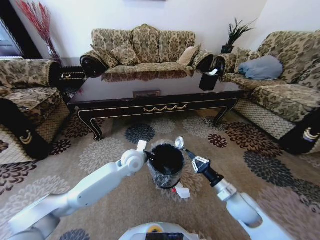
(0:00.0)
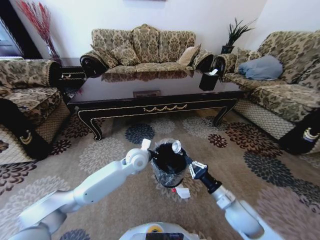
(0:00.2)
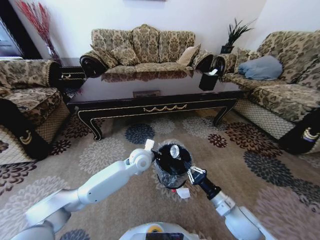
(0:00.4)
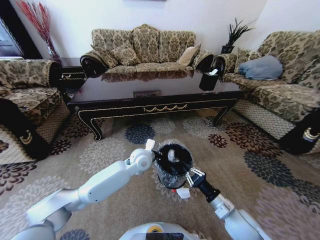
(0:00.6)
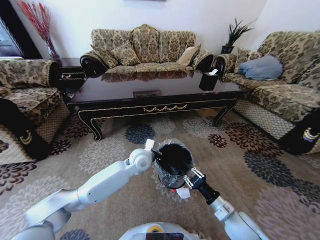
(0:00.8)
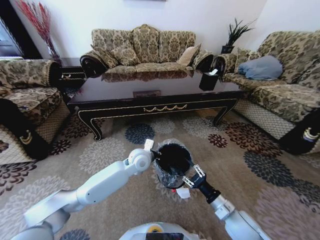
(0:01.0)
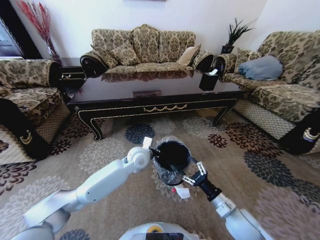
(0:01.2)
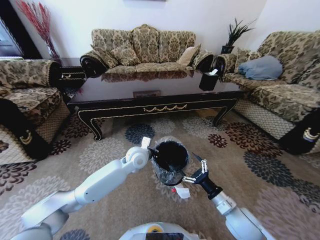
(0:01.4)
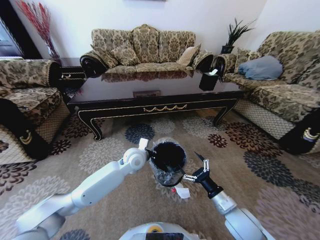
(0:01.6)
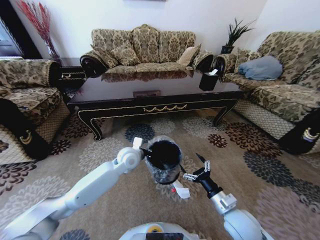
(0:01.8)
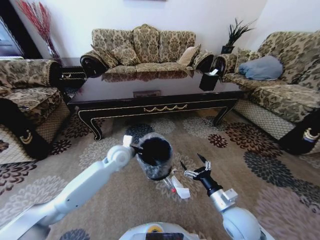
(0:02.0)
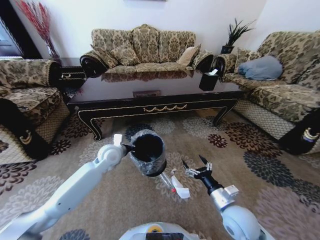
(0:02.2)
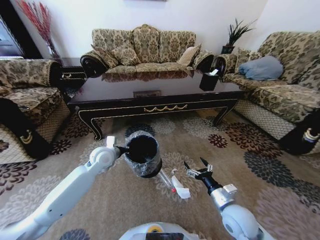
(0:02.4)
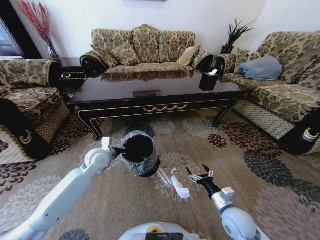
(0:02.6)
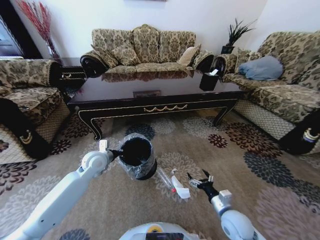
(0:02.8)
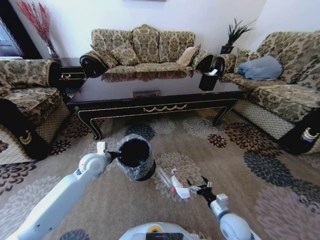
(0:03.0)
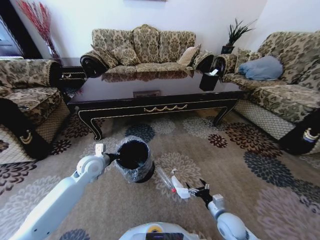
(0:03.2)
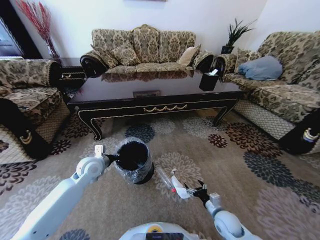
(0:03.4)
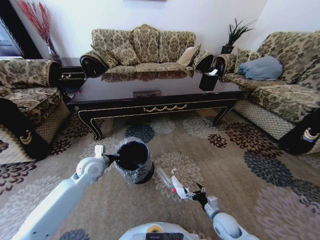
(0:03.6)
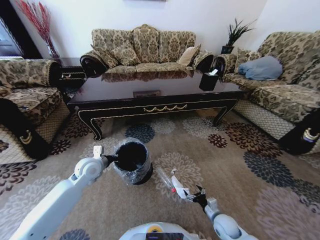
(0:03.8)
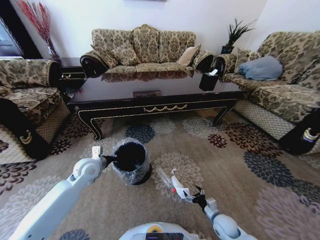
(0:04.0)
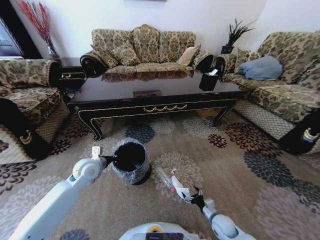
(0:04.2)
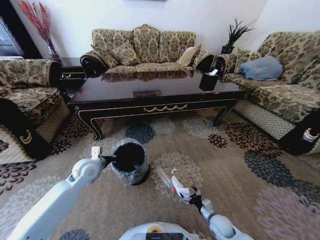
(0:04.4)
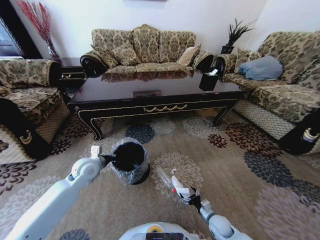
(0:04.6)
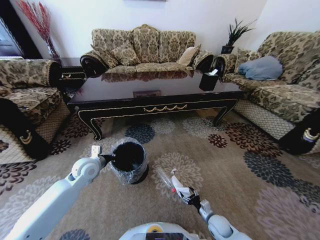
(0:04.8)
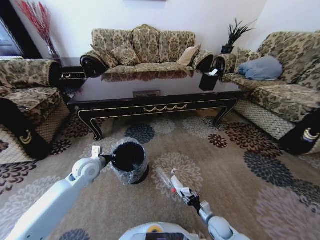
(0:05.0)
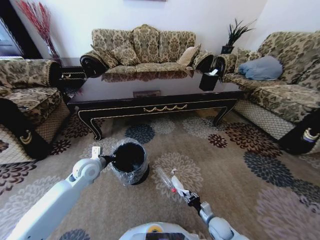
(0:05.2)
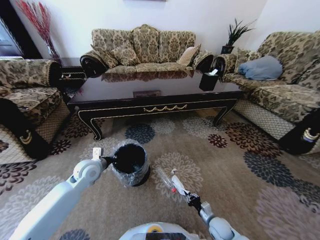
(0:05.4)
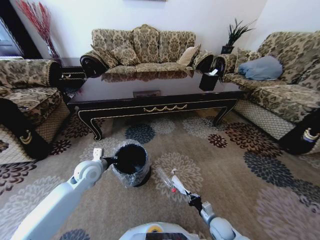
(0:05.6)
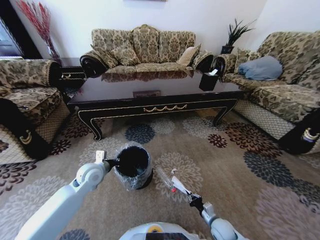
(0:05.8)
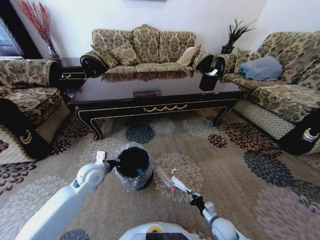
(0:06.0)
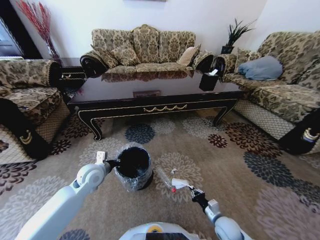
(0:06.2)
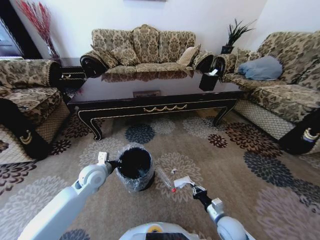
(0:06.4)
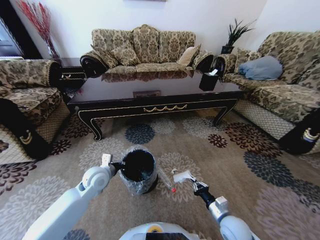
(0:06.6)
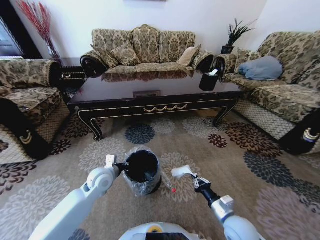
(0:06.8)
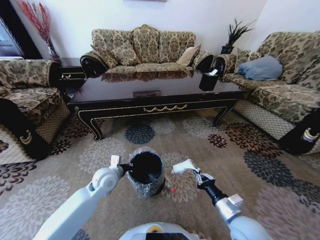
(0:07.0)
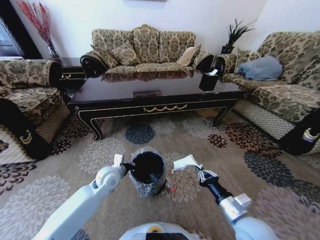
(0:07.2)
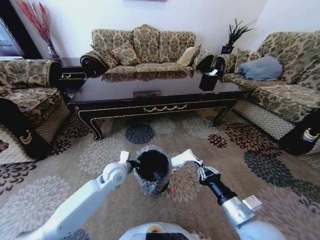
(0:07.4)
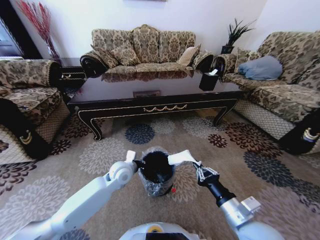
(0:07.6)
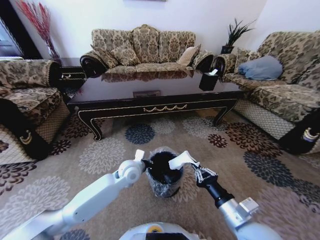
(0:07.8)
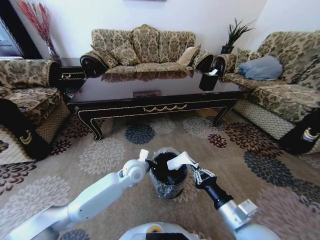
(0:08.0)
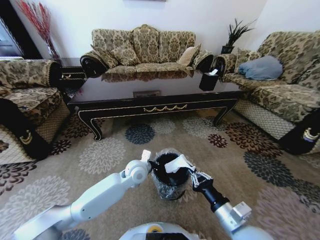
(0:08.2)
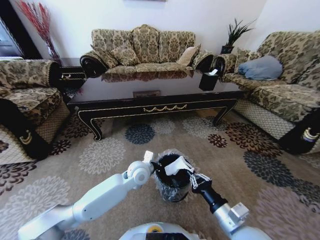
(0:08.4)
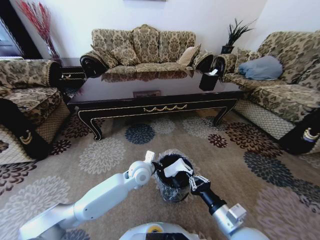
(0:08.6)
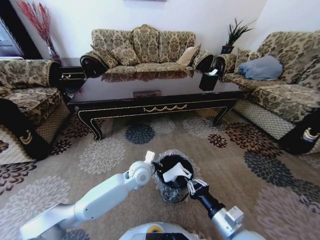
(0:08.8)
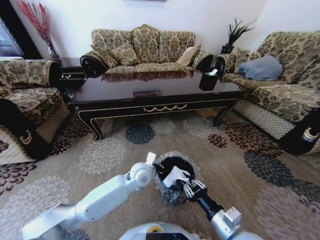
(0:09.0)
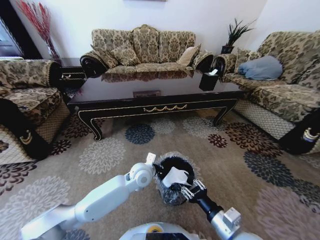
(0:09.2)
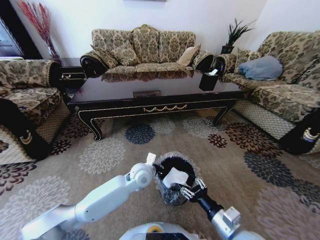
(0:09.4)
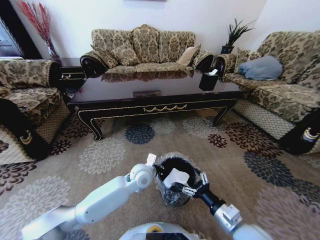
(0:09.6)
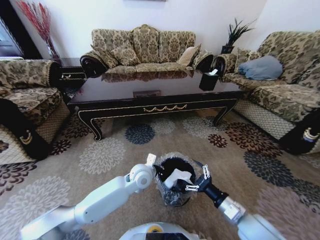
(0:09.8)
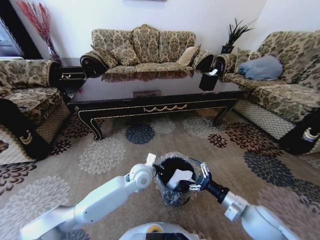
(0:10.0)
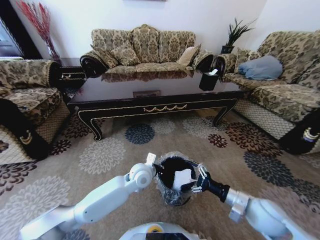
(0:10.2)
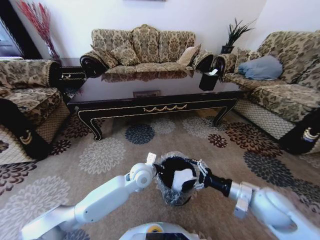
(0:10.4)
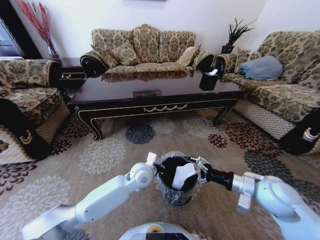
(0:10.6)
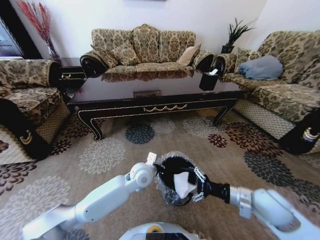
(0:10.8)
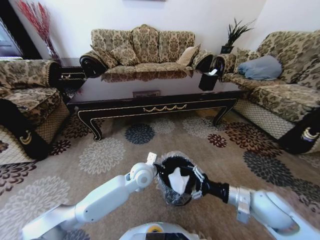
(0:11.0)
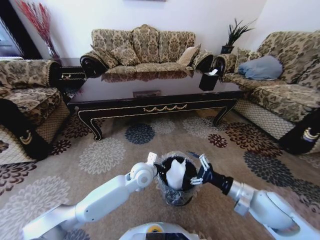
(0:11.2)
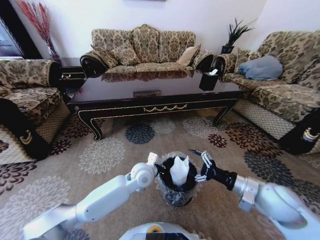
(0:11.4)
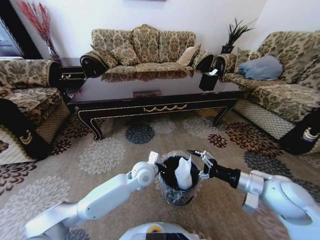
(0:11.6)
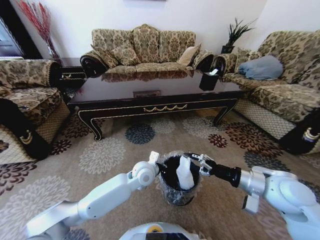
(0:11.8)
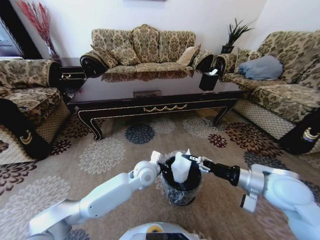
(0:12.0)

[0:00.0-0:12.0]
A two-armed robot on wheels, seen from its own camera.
Task of the whole recording: Move to the front of the table and pick up the trash from the floor, then place it into the trash bin.
0:00.0 to 0:01.6: The right gripper shifts roughly 5 cm backward, and opens.
0:01.6 to 0:03.0: The left gripper travels to the left by roughly 20 cm; the right gripper shifts about 10 cm downward.
0:03.0 to 0:04.4: The right gripper heads downward, covering some 10 cm.
0:04.4 to 0:06.0: The right gripper closes its fingers.
0:06.0 to 0:07.6: The left gripper goes about 10 cm to the right, while the right gripper goes roughly 25 cm upward.
0:07.6 to 0:09.0: The left gripper is displaced to the right by roughly 10 cm.
0:09.0 to 0:10.4: The right gripper shifts roughly 15 cm to the right and forward, and opens.
0:10.4 to 0:12.0: The right gripper is displaced upward by approximately 5 cm.

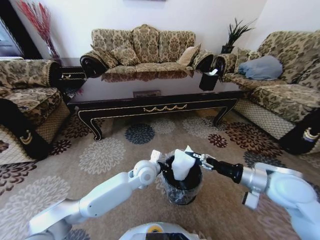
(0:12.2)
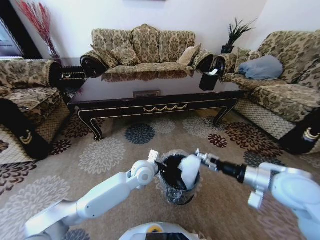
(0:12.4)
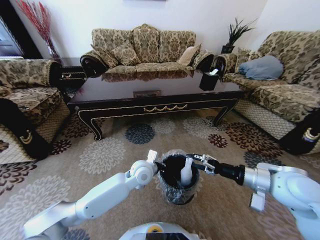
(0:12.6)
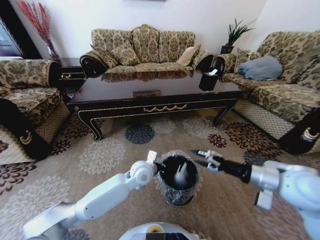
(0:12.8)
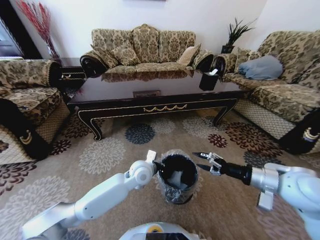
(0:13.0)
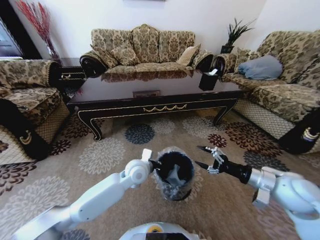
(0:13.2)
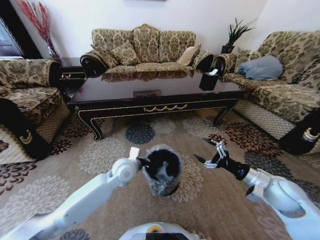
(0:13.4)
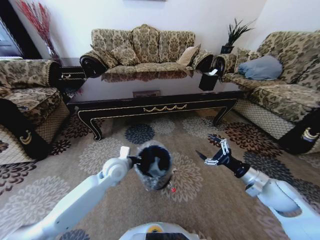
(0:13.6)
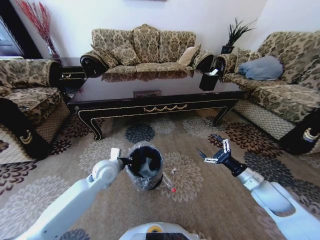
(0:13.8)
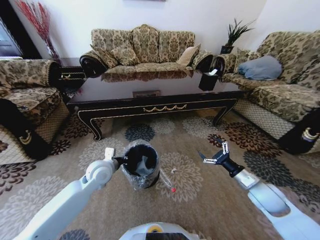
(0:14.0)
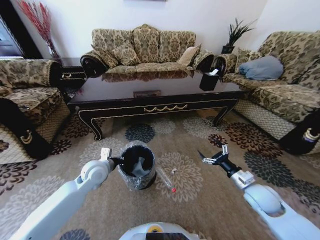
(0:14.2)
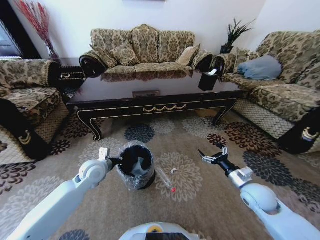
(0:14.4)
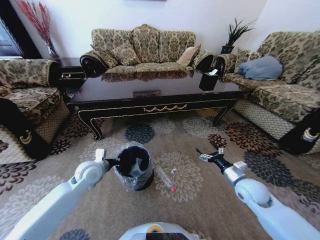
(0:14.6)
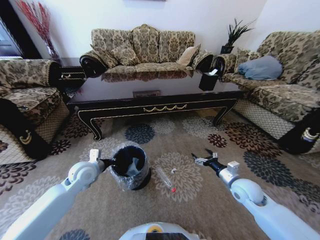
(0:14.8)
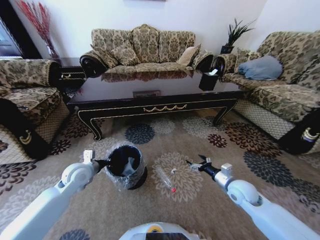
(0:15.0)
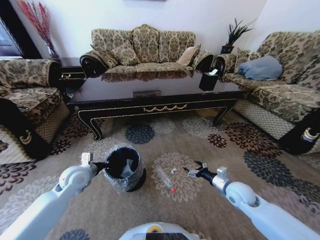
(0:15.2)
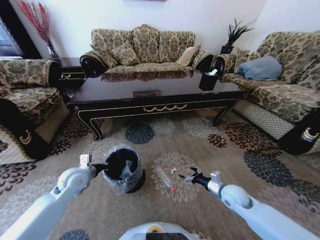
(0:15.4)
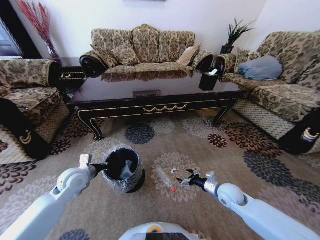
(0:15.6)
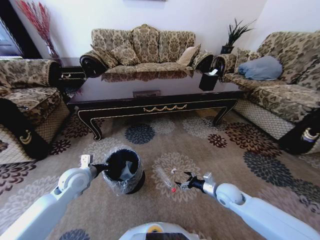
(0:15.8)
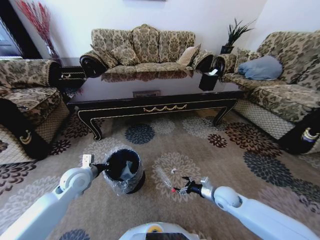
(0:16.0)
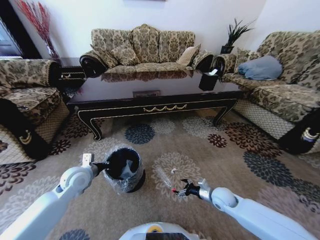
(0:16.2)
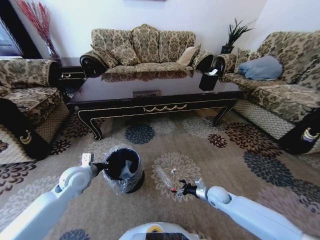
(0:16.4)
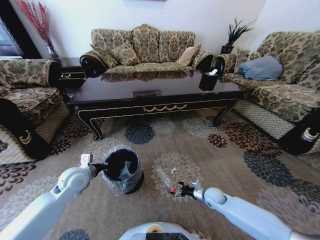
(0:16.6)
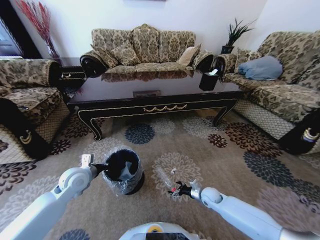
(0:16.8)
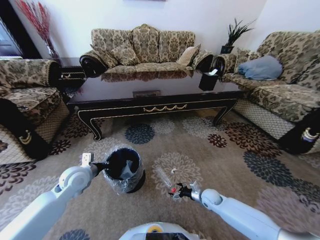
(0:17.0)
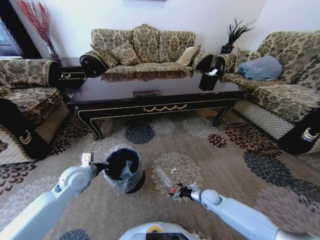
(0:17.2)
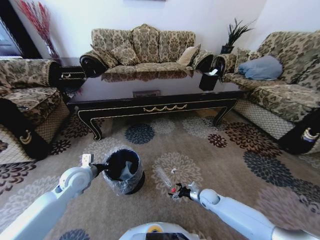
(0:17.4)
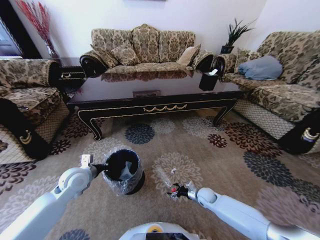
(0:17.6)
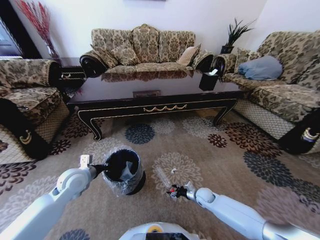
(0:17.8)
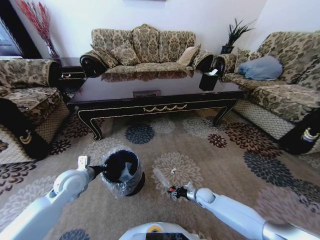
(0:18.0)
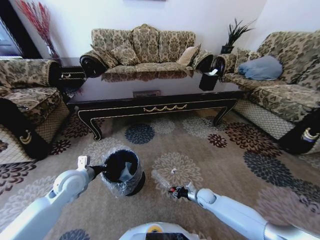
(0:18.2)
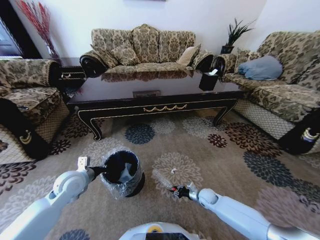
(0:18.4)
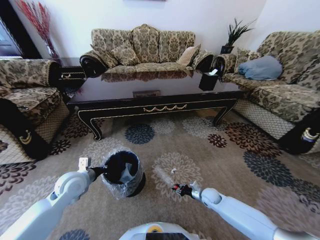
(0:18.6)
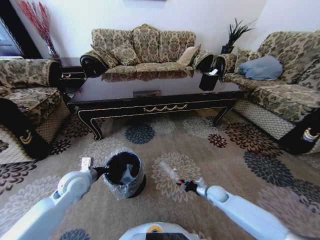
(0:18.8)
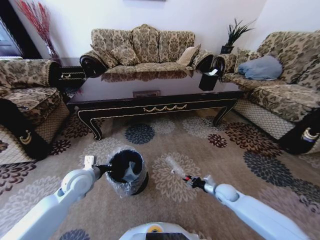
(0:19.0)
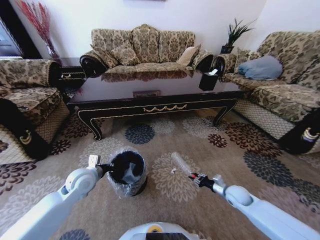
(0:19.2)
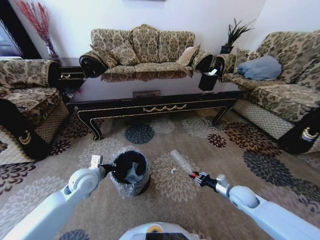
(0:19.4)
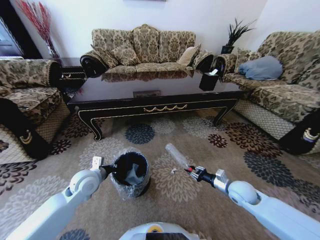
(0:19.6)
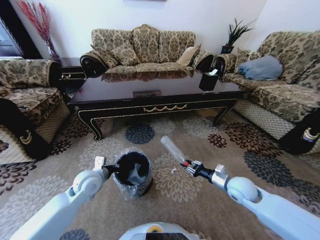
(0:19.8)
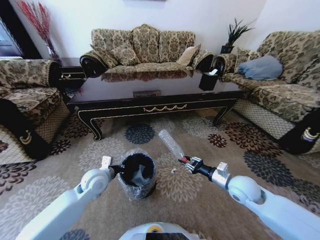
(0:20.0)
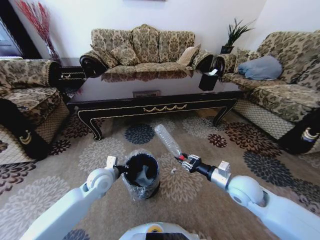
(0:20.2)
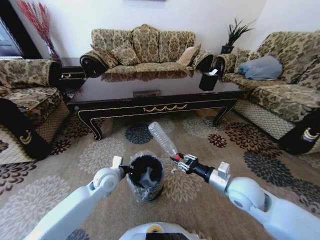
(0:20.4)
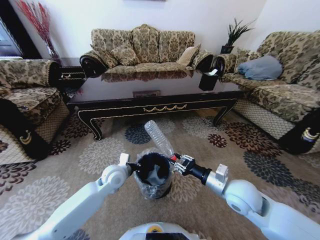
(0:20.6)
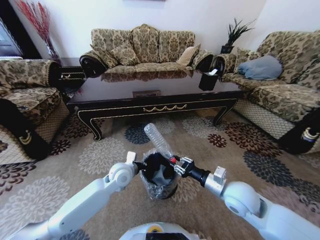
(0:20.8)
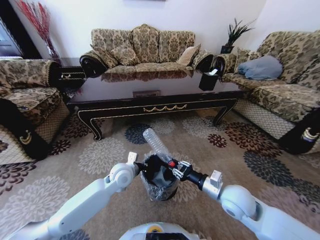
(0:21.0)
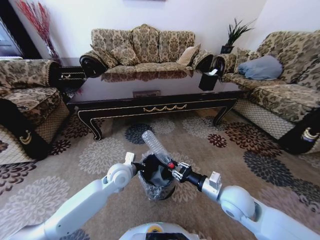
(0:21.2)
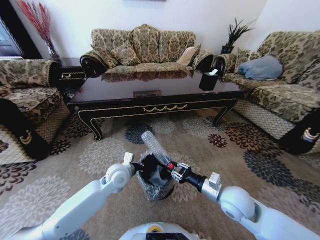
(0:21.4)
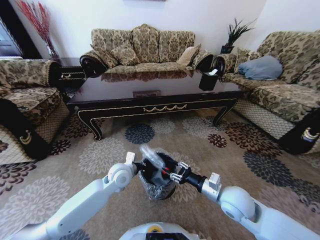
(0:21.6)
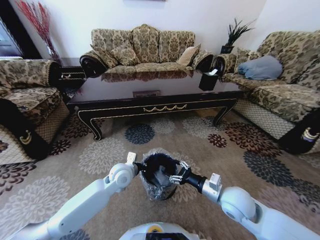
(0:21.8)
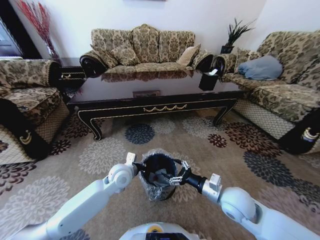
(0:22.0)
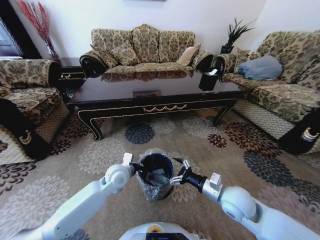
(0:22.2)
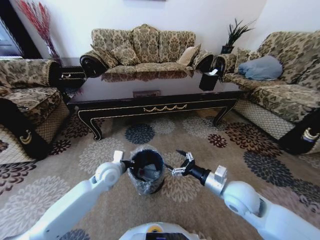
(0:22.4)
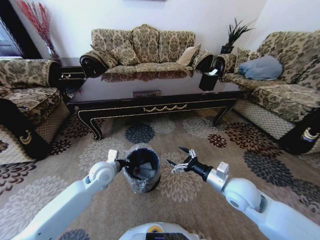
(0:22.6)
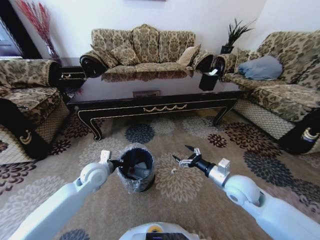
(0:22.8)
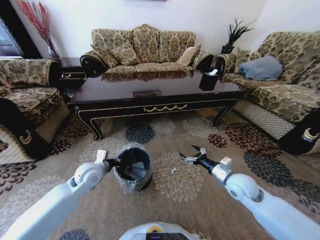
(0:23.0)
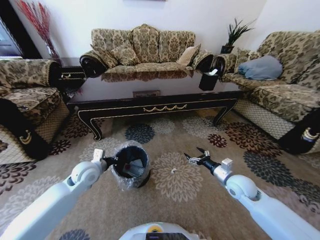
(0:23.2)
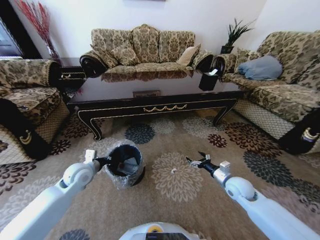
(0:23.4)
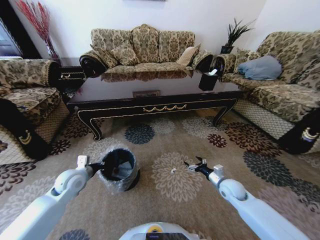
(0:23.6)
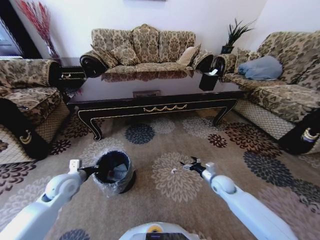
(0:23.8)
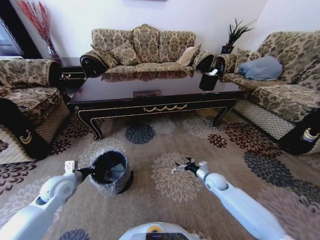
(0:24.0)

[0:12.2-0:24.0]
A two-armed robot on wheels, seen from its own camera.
Task of the whole recording: Move to the front of the table and pick up the trash from the floor, then place it into the trash bin.
0:12.2 to 0:13.6: The left gripper travels to the left by roughly 15 cm. Meanwhile the right gripper moves downward, some 5 cm.
0:13.6 to 0:15.2: The right gripper shifts some 10 cm downward and to the left, while the left gripper travels to the left by some 15 cm.
0:15.2 to 0:16.6: The right gripper is displaced downward by approximately 15 cm.
0:16.6 to 0:18.2: The right gripper shifts some 5 cm downward, and closes up.
0:18.2 to 0:19.6: The right gripper is displaced upward and to the right by roughly 20 cm.
0:19.6 to 0:21.0: The right gripper is displaced to the left, upward and backward by approximately 15 cm, while the left gripper moves to the right, approximately 15 cm.
0:21.0 to 0:22.6: The left gripper heads to the left, covering roughly 10 cm. Meanwhile the right gripper opens.
0:22.6 to 0:24.0: The right gripper moves downward and forward, approximately 20 cm; the left gripper moves to the left, some 15 cm.
